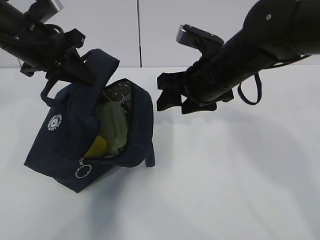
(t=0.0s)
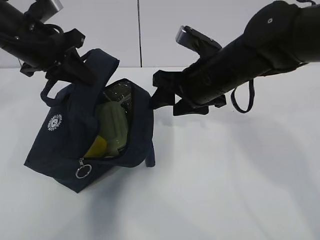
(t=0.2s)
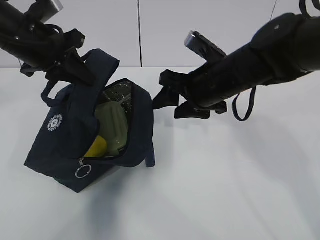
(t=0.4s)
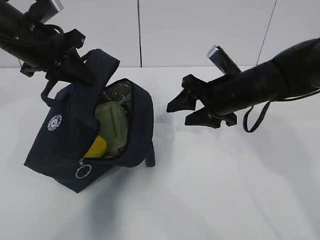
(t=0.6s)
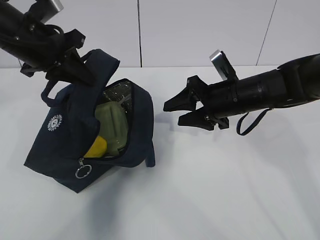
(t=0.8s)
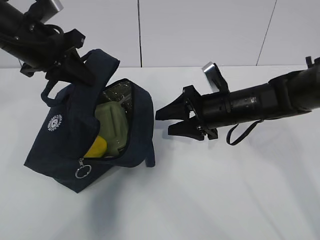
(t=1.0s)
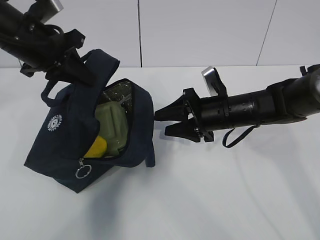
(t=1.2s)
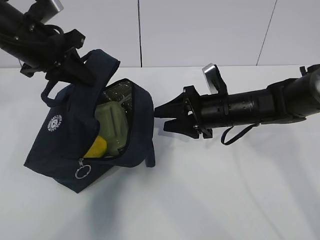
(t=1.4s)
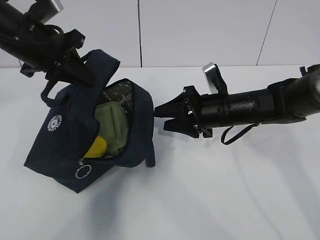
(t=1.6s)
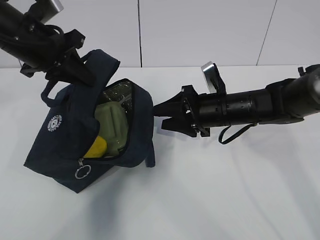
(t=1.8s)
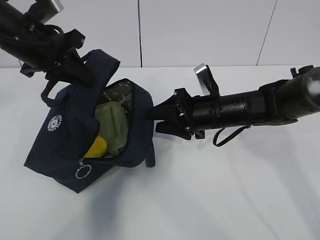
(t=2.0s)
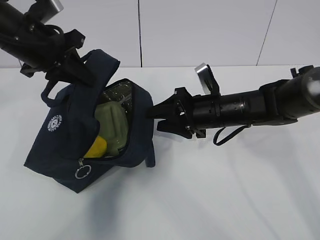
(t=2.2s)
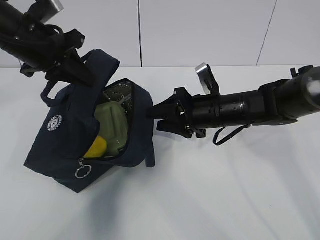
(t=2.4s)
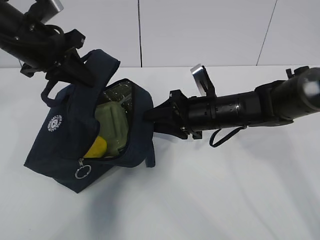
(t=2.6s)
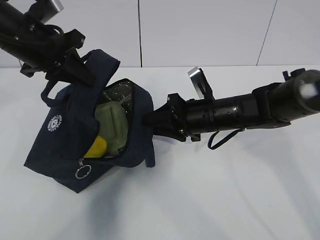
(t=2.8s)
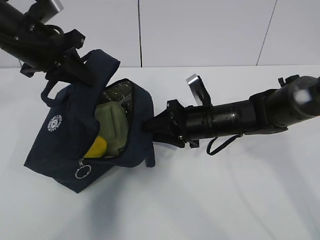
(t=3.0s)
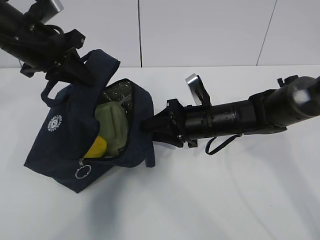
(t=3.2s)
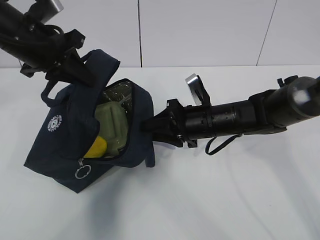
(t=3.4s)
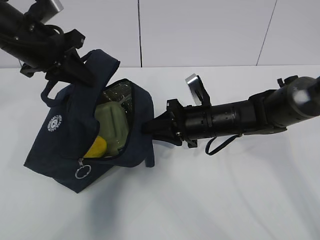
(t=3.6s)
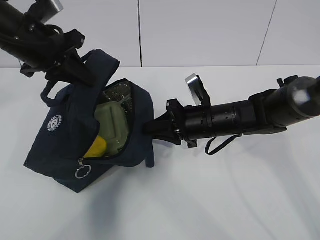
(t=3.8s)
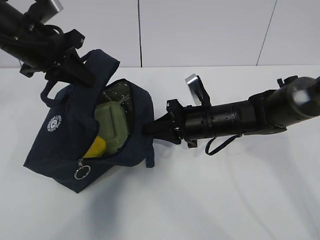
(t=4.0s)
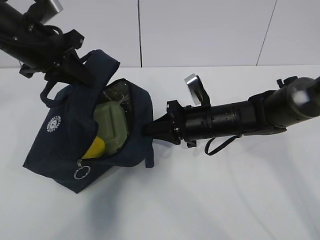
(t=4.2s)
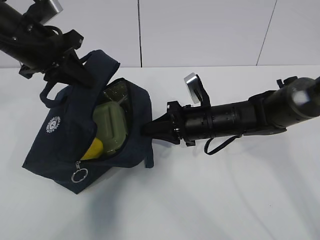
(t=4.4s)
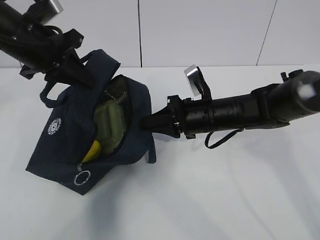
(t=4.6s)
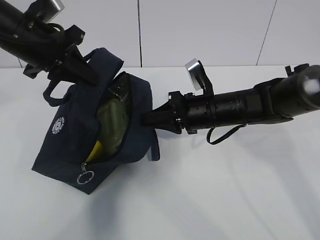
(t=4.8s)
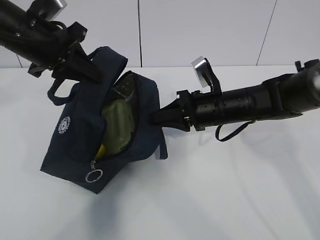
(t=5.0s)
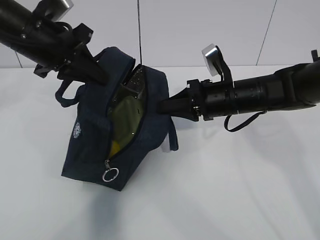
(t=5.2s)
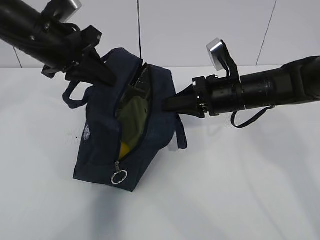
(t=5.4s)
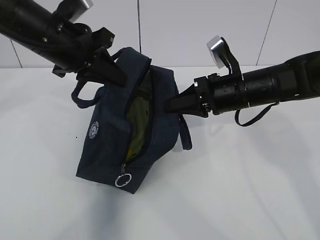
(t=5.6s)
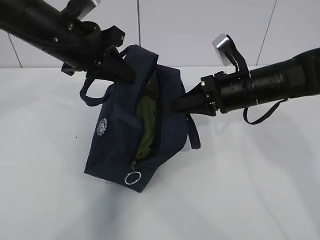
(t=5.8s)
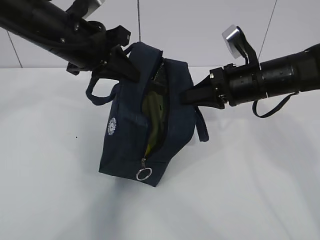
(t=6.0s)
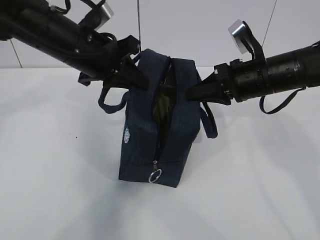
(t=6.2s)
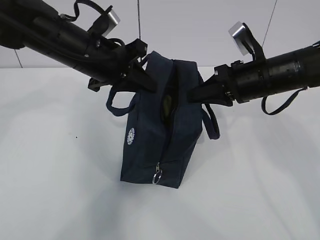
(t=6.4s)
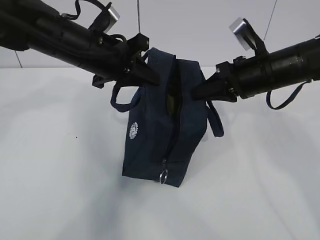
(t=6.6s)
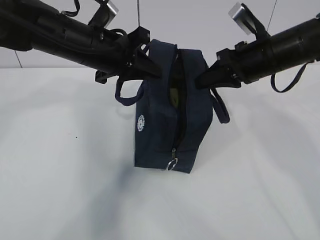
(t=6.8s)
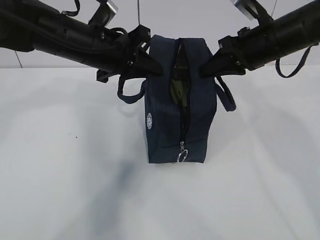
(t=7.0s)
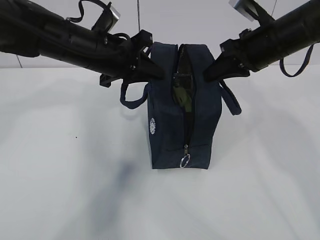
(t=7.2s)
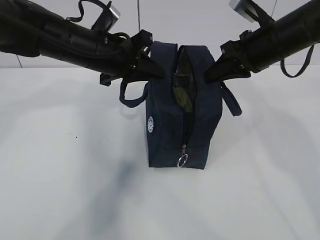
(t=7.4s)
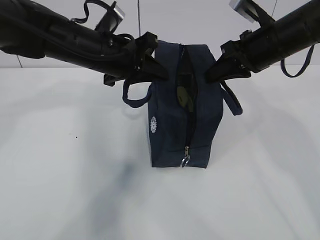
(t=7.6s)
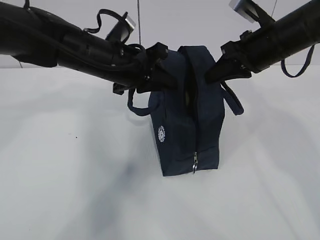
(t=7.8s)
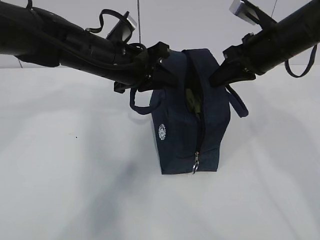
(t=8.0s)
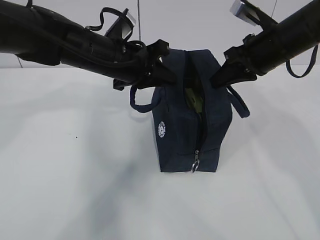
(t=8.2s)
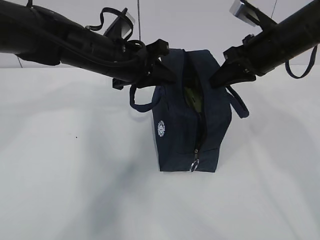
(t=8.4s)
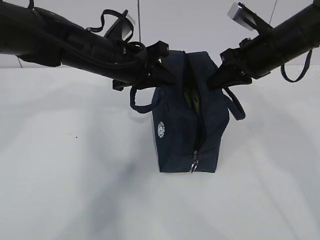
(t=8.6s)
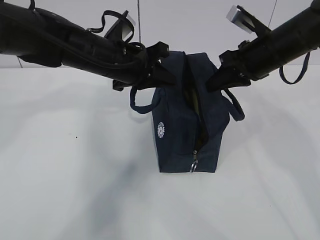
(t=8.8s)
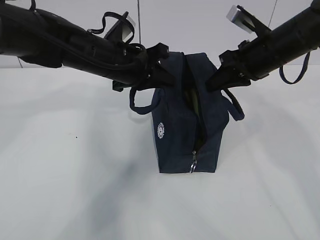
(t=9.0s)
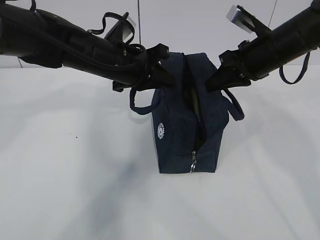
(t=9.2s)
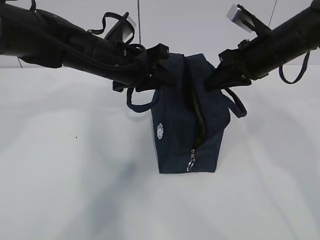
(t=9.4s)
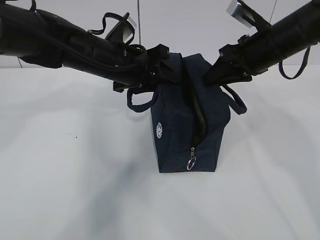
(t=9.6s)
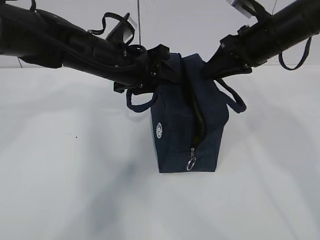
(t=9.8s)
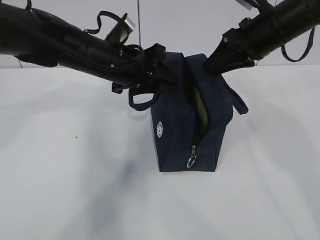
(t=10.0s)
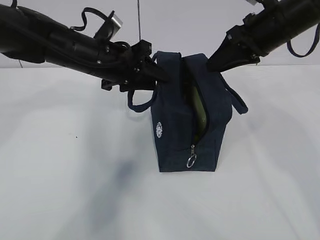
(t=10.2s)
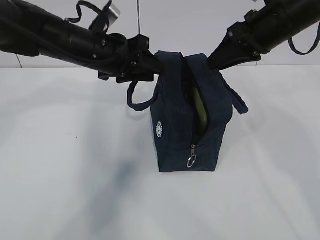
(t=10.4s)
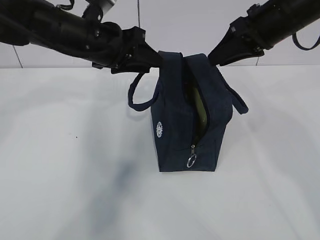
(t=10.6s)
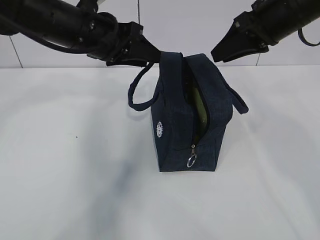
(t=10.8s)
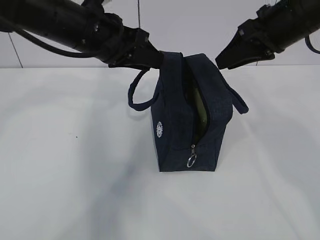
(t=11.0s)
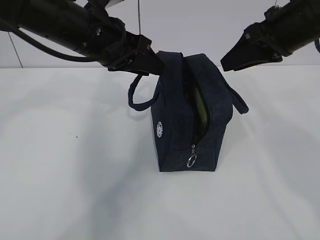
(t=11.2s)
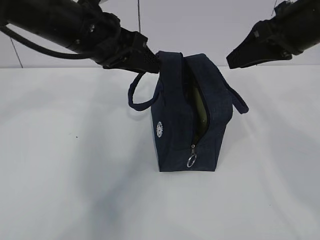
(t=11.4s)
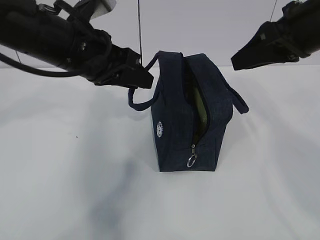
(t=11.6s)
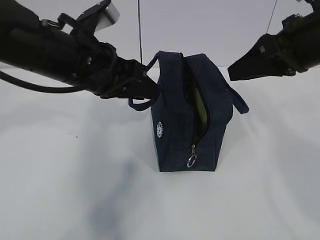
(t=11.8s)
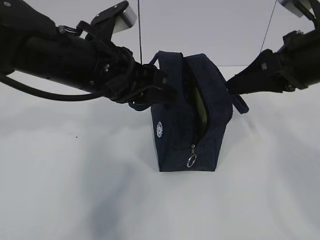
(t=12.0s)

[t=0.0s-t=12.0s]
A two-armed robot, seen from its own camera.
t=0.0s to t=1.6s: The right gripper is displaced downward by roughly 10 cm.
t=1.6s to t=3.0s: The grippers make only small movements.
t=3.0s to t=4.4s: The right gripper closes its fingers.
t=4.4s to t=6.0s: The right gripper is displaced upward and to the right by some 10 cm; the left gripper shifts about 5 cm to the right.
t=6.0s to t=7.6s: The right gripper goes approximately 5 cm upward, while the left gripper ends up roughly 5 cm from where it was.
t=7.6s to t=9.0s: There are only small adjustments of the grippers.
t=9.0s to t=10.4s: The right gripper is displaced upward by some 5 cm, and opens its fingers. Meanwhile the left gripper opens its fingers.
t=10.4s to t=12.0s: Both grippers move backward, approximately 10 cm.

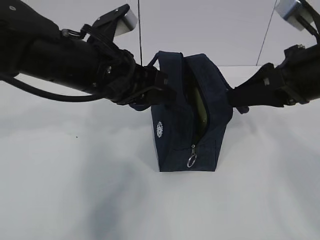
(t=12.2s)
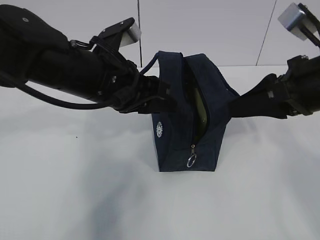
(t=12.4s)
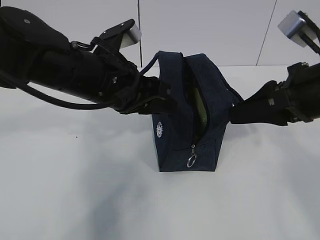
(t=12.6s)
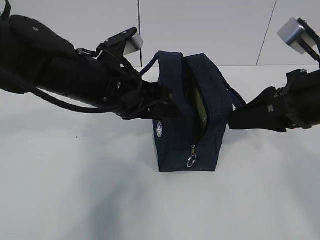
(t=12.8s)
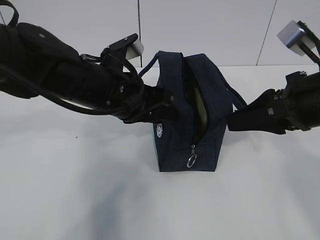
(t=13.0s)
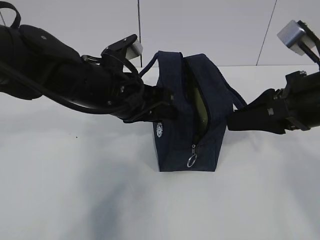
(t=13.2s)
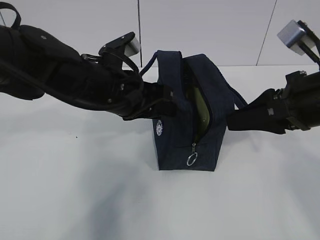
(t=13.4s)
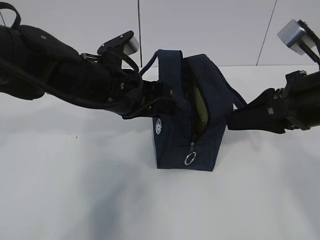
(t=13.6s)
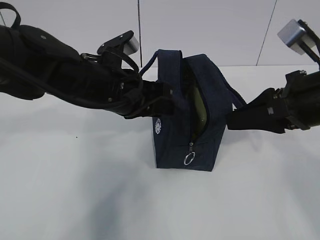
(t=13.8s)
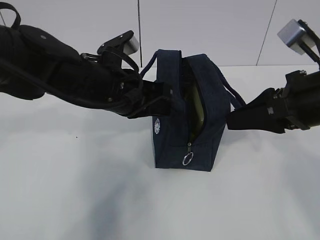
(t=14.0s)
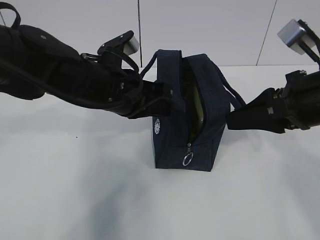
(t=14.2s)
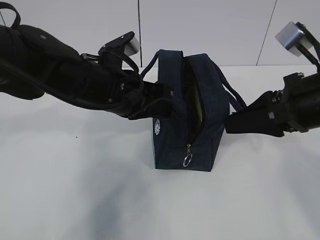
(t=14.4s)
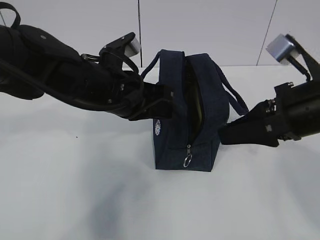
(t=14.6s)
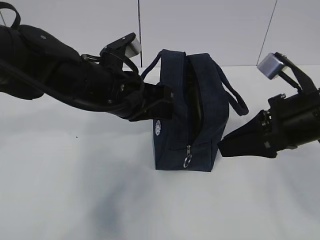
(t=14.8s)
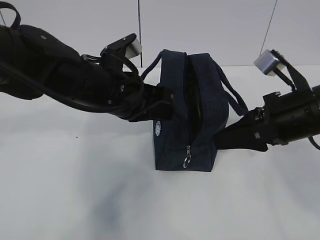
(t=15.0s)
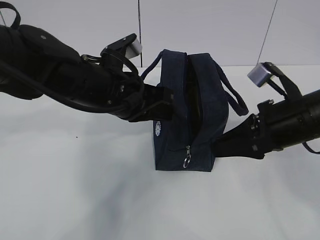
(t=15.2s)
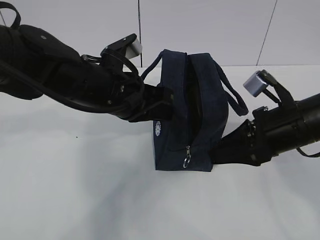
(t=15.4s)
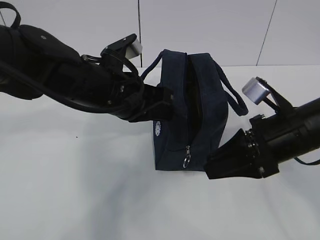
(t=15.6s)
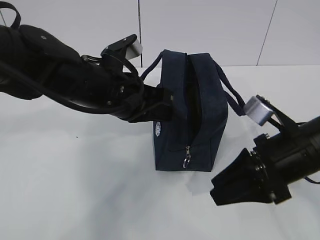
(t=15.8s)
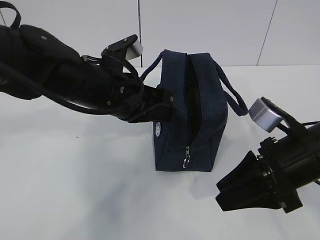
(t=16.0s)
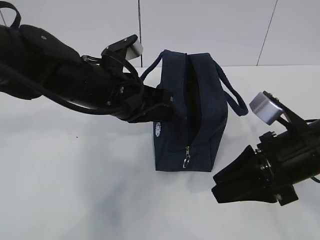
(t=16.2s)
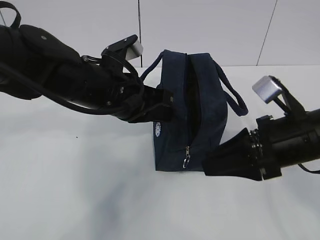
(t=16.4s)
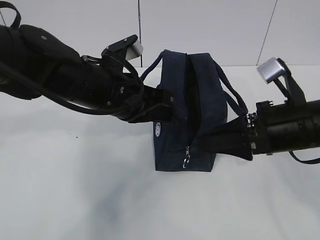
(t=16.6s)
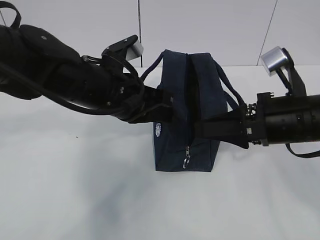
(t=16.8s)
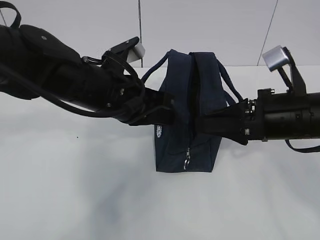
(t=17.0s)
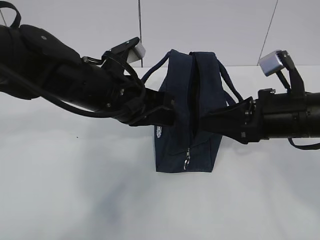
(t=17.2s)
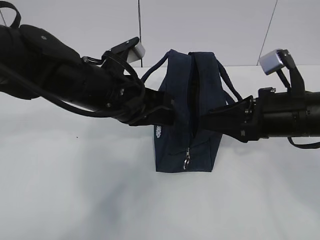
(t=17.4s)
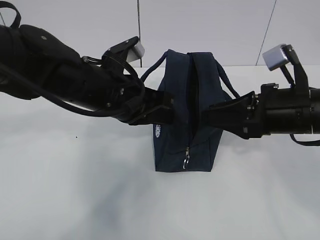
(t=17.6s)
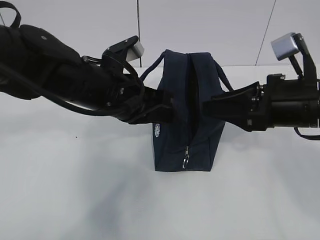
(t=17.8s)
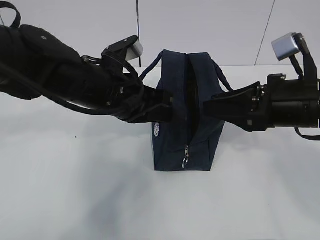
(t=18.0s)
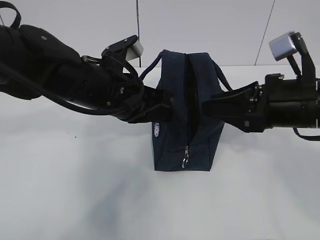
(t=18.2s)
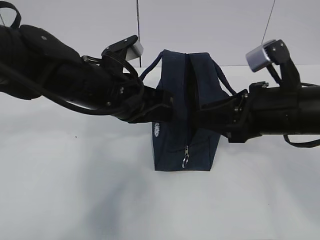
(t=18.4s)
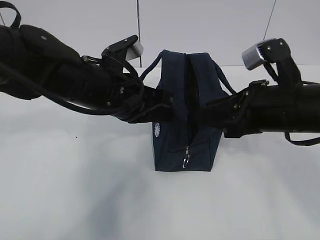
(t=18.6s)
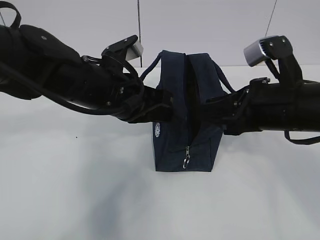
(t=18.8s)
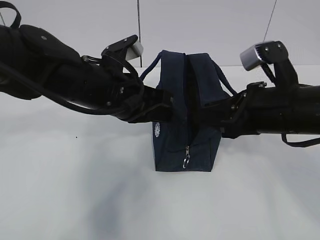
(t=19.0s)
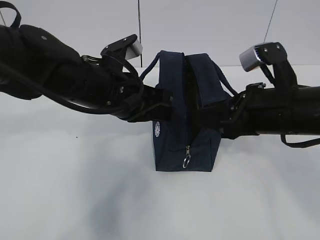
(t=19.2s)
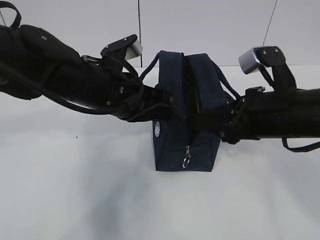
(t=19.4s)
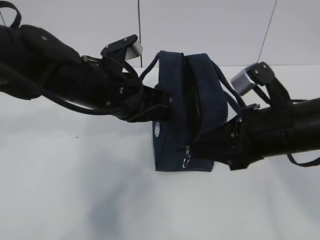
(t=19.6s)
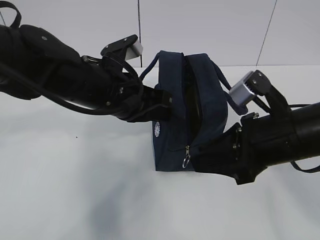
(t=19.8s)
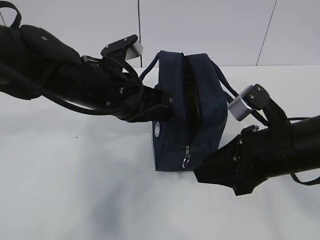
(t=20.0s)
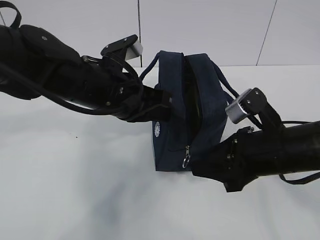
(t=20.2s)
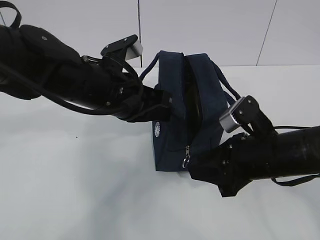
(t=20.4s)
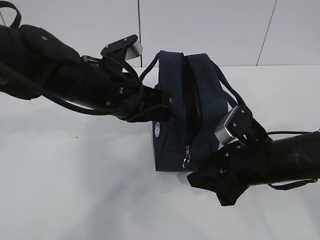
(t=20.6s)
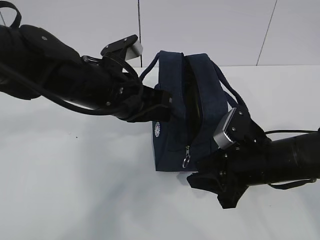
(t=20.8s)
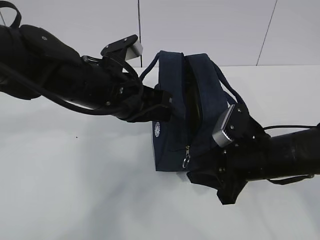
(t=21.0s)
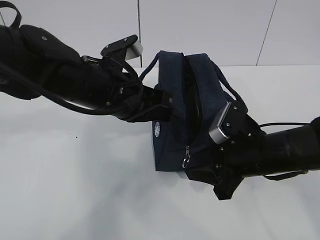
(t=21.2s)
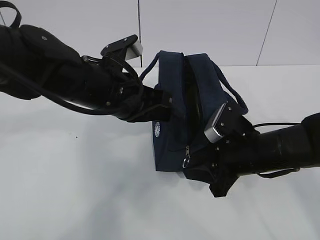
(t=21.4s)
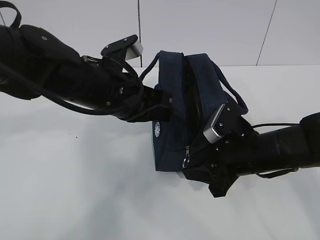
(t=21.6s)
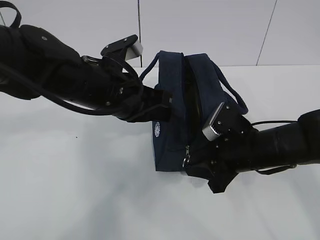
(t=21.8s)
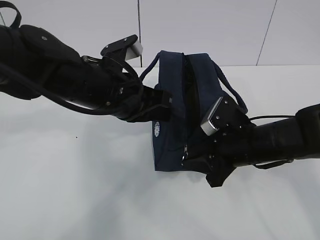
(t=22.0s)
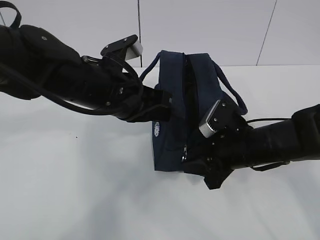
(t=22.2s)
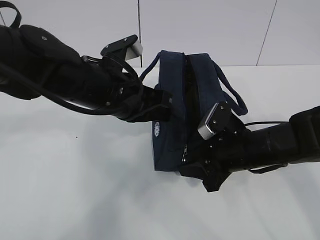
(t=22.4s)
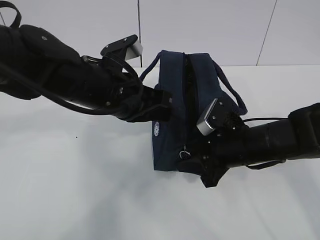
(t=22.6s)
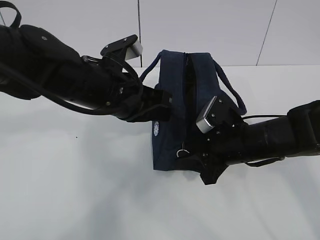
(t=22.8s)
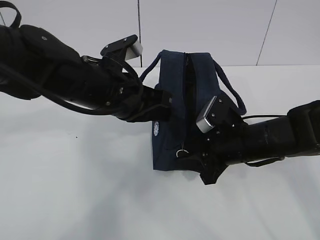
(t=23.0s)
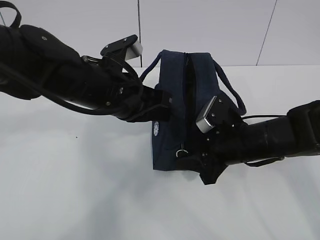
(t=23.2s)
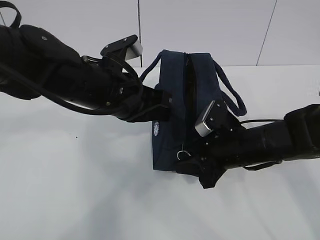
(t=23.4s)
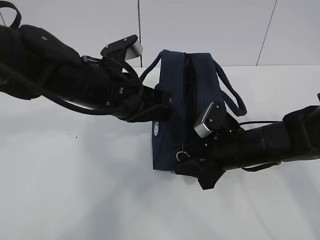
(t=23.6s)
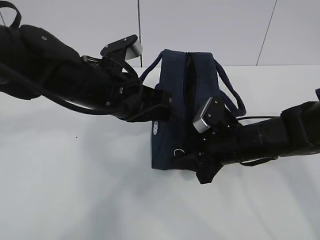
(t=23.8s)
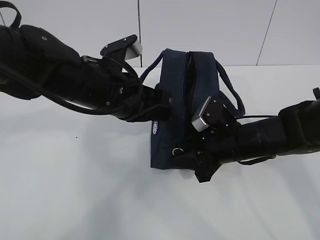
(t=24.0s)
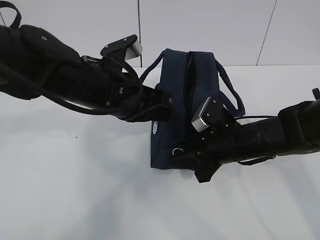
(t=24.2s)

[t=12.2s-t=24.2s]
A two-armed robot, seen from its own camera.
t=12.2s to t=13.8s: The grippers stay close to where they were, moving slightly.
t=13.8s to t=15.2s: The right gripper shifts approximately 5 cm downward. Meanwhile the left gripper closes up.
t=15.2s to t=16.6s: The grippers make only small movements.
t=16.6s to t=18.2s: The grippers move only a little.
t=18.2s to t=19.8s: The grippers make only small movements.
t=19.8s to t=21.2s: The right gripper heads downward, covering roughly 10 cm.
t=21.2s to t=24.2s: The grippers move only a little.
